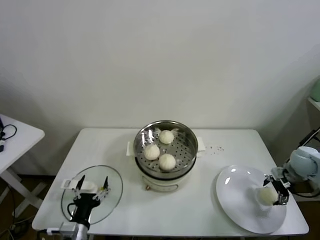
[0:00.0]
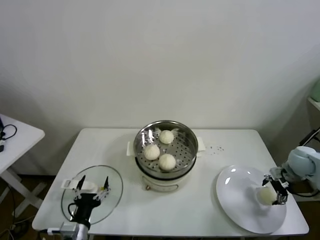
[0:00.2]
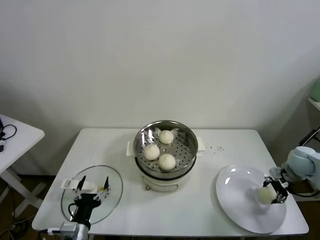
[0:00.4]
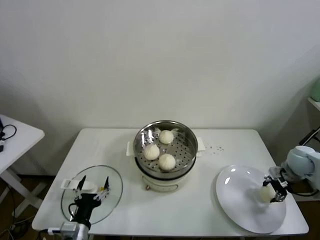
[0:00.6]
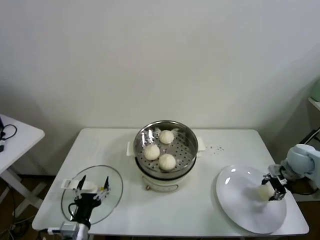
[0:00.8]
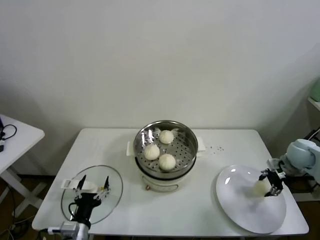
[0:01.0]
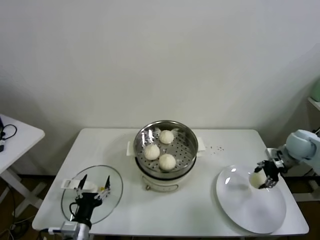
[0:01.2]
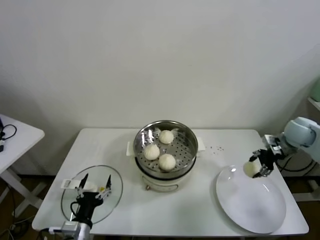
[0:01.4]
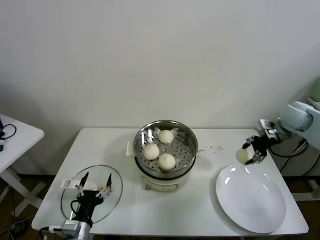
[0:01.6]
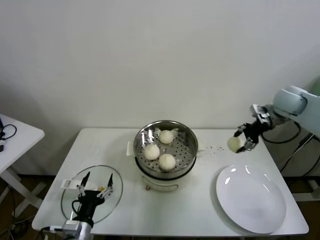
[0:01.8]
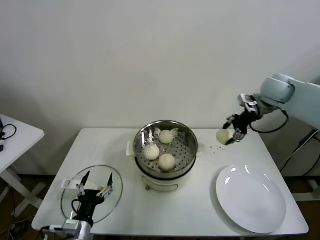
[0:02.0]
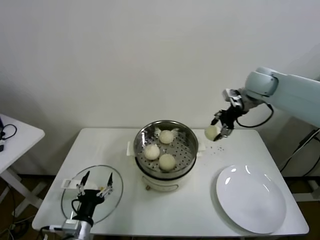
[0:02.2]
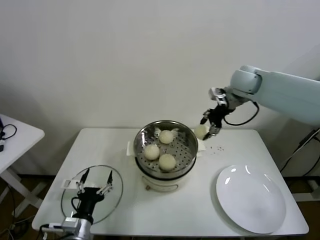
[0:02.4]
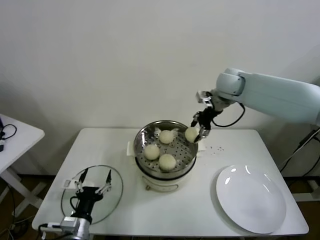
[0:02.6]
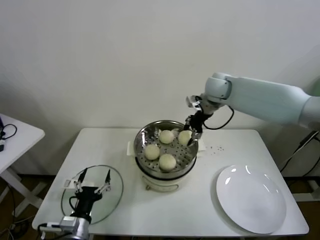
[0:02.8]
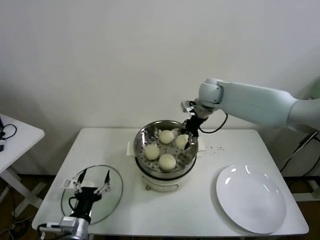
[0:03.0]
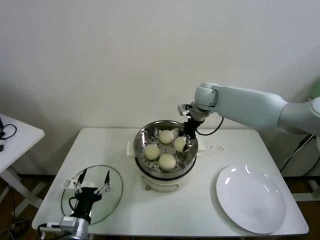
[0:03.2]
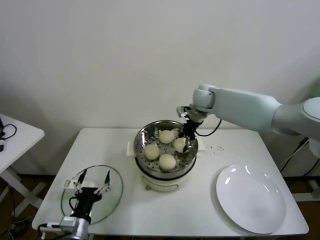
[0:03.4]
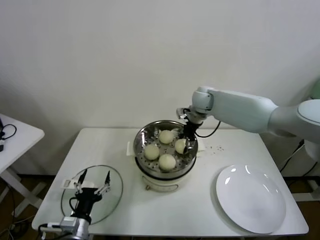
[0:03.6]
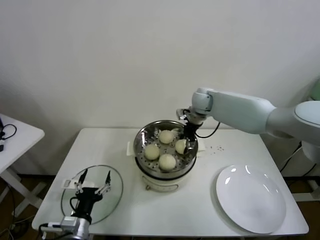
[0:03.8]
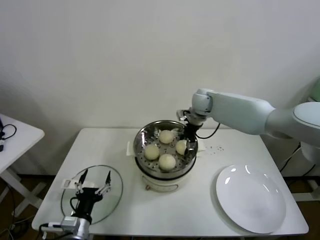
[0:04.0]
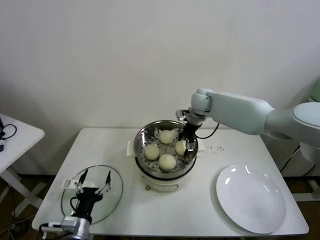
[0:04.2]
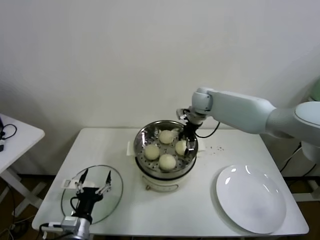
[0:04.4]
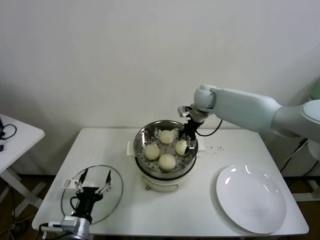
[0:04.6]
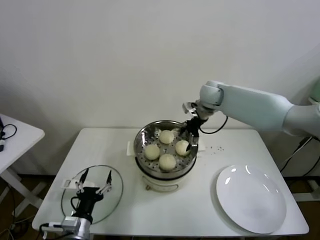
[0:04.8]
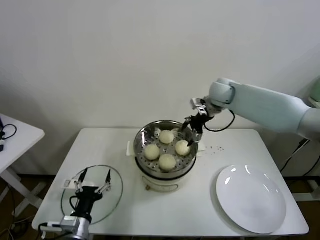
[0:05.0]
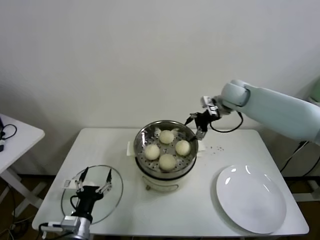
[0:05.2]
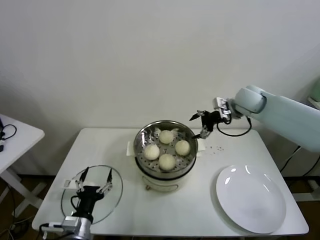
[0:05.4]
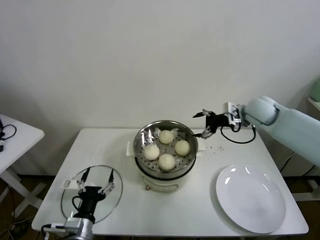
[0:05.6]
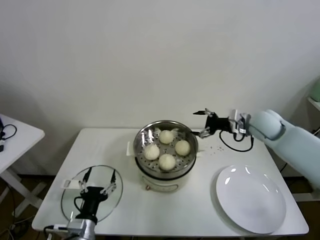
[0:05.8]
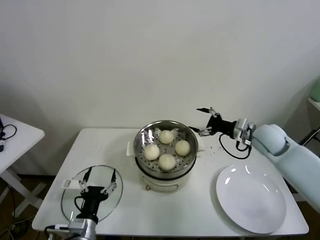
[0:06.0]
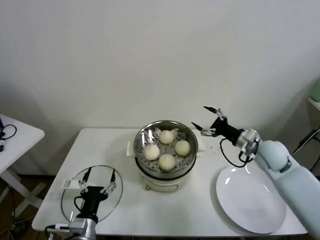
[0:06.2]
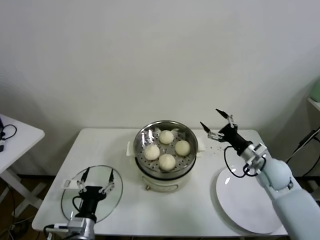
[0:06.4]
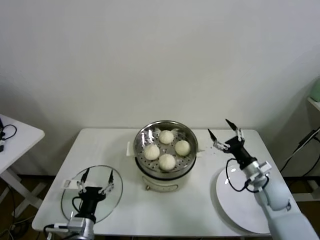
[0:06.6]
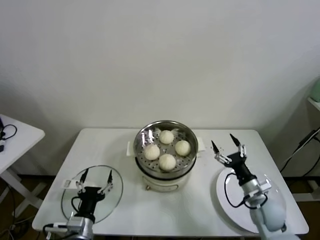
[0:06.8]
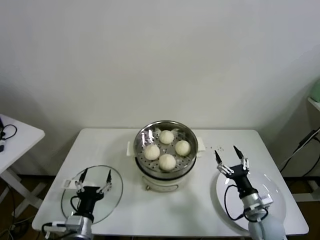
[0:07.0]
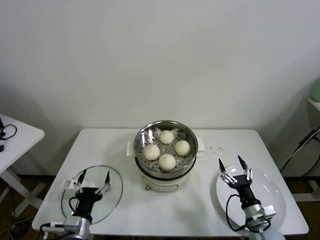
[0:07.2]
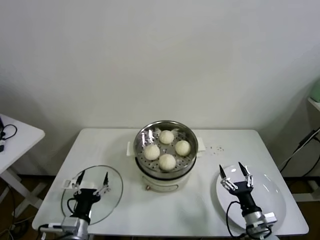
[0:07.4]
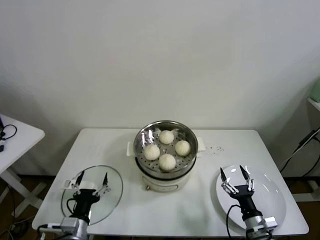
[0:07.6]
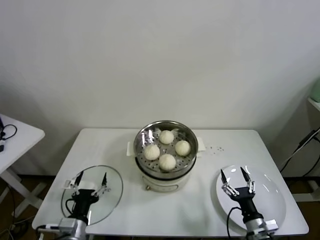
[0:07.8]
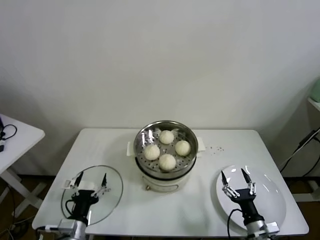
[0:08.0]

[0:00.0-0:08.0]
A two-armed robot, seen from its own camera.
Task of the whole recording: take steamed baozi put them in steamer.
Step, 0:00.4 to 0:04.2: Place the baozi on the steamer with right gripper.
0:00.0 to 0:01.6: The right gripper moves upward, forward and to the left, approximately 15 cm, and closes up.
0:01.6 to 0:03.2: The right gripper travels to the left by roughly 30 cm.
0:03.2 to 0:04.8: The right gripper opens up.
0:04.8 to 0:06.4: The right gripper heads backward, to the right and downward, covering about 30 cm.
0:06.4 to 0:08.0: The right gripper goes roughly 25 cm backward and downward.

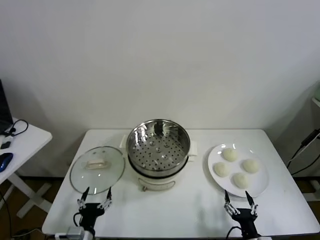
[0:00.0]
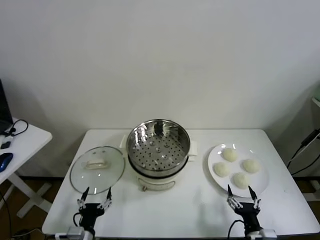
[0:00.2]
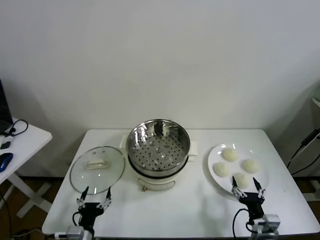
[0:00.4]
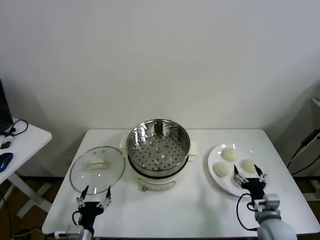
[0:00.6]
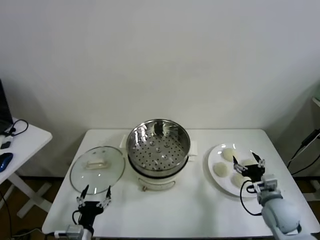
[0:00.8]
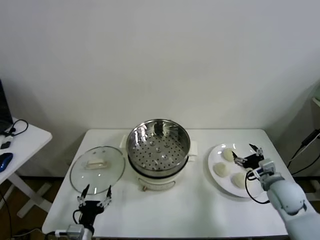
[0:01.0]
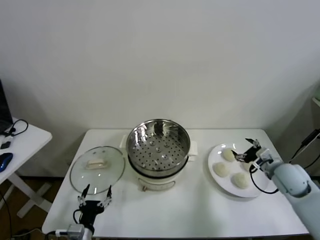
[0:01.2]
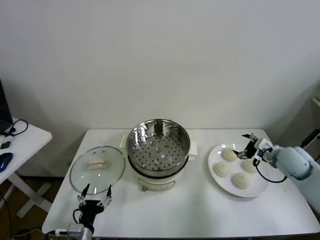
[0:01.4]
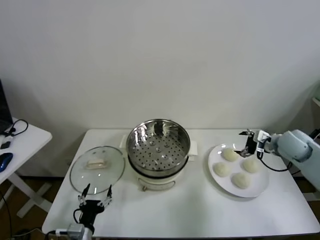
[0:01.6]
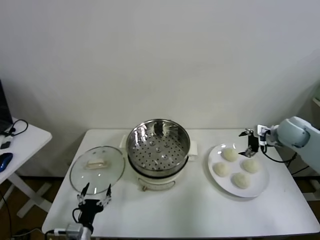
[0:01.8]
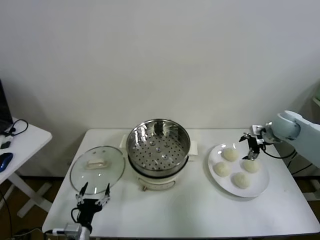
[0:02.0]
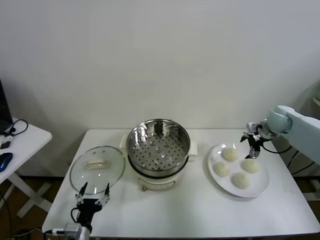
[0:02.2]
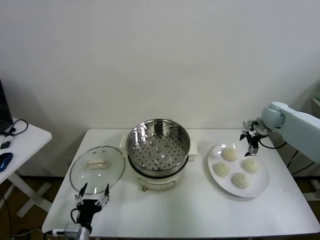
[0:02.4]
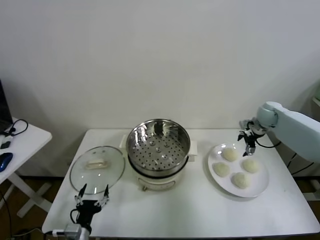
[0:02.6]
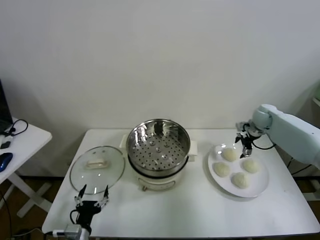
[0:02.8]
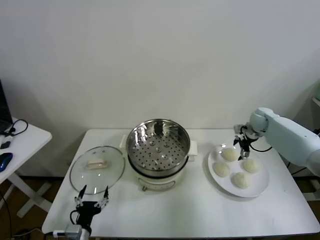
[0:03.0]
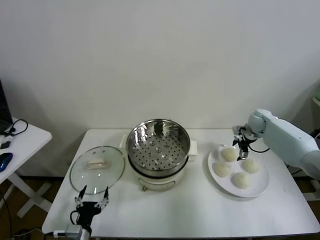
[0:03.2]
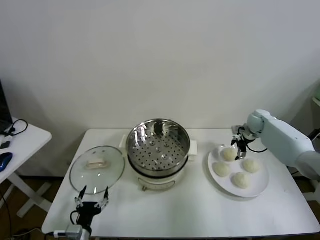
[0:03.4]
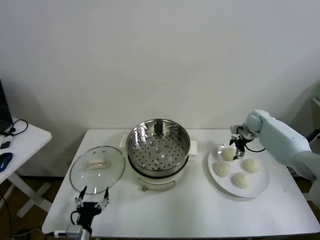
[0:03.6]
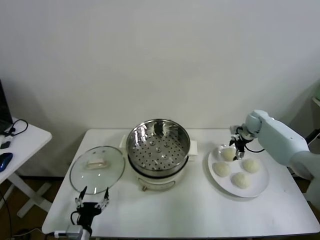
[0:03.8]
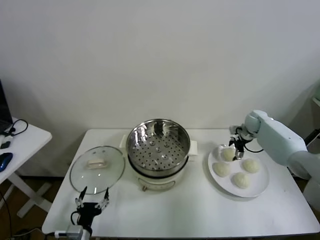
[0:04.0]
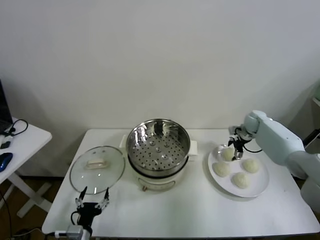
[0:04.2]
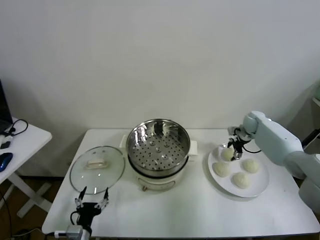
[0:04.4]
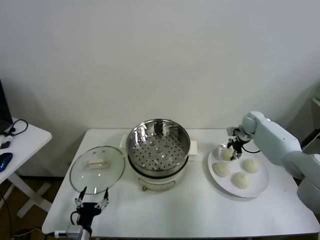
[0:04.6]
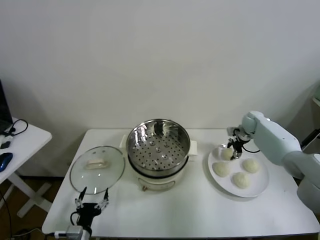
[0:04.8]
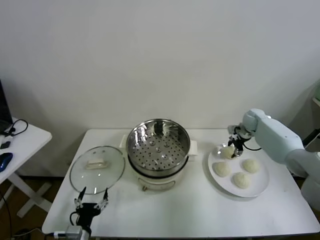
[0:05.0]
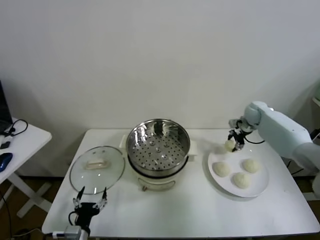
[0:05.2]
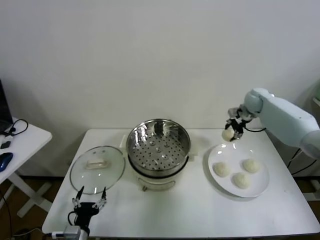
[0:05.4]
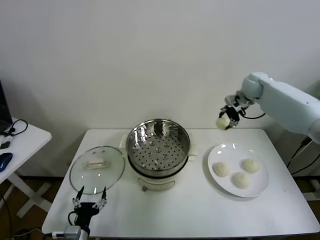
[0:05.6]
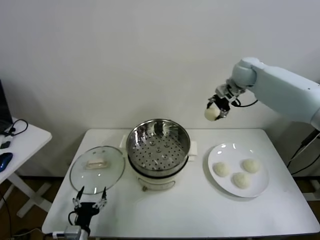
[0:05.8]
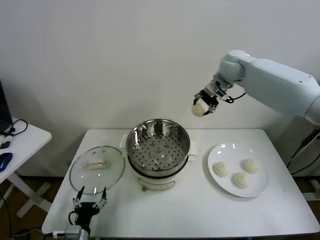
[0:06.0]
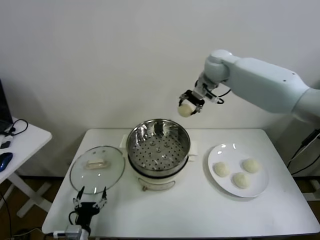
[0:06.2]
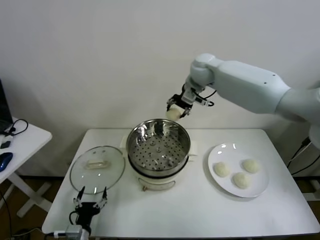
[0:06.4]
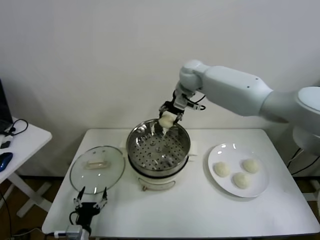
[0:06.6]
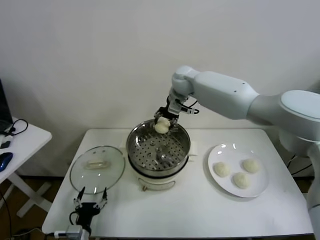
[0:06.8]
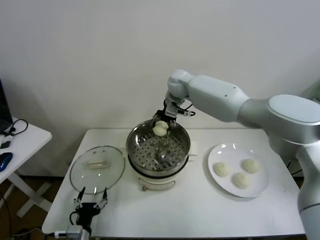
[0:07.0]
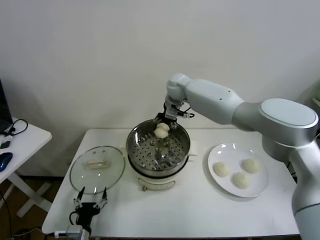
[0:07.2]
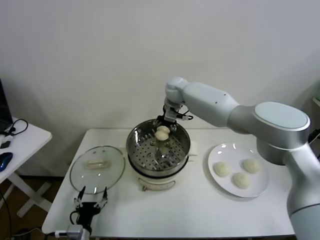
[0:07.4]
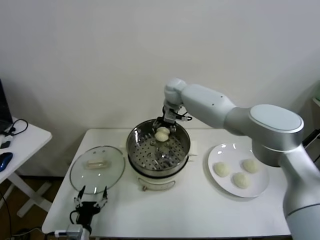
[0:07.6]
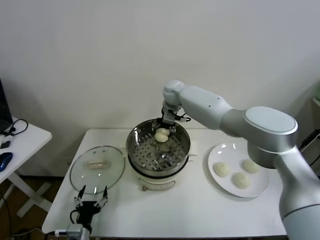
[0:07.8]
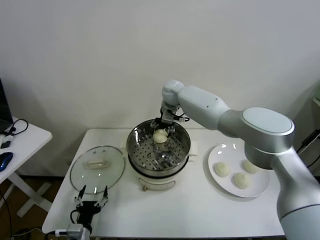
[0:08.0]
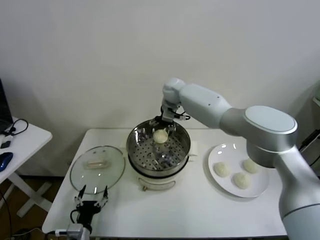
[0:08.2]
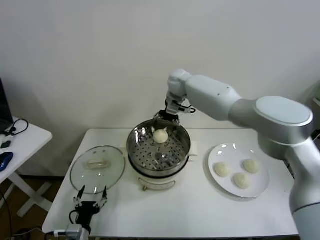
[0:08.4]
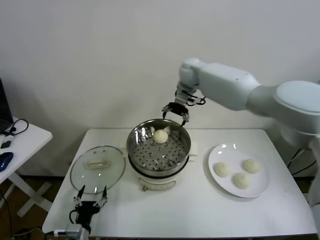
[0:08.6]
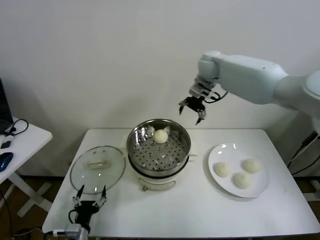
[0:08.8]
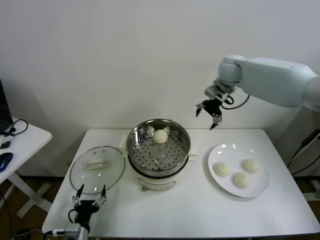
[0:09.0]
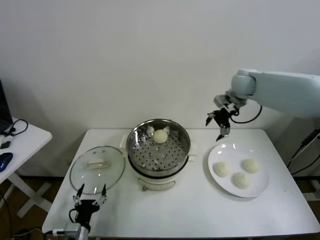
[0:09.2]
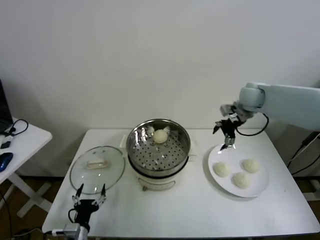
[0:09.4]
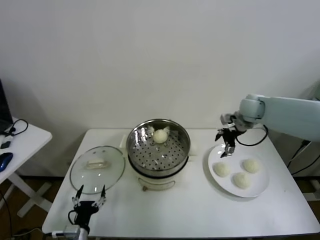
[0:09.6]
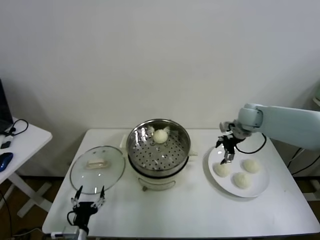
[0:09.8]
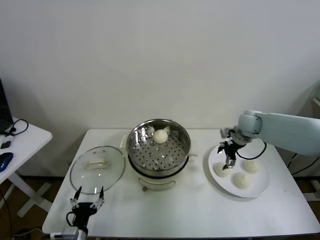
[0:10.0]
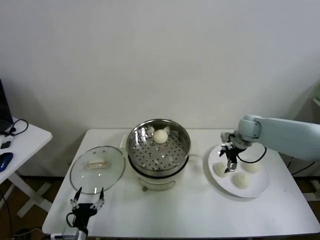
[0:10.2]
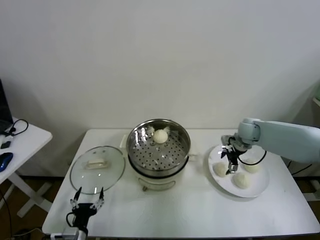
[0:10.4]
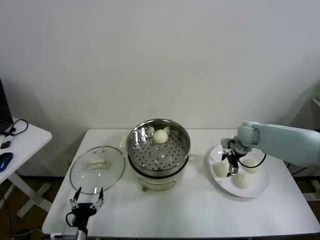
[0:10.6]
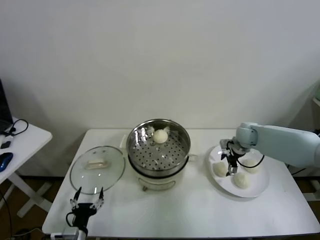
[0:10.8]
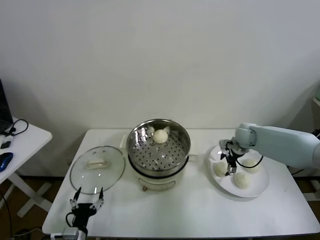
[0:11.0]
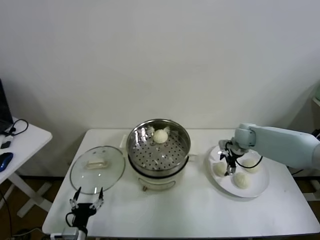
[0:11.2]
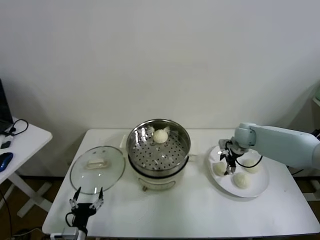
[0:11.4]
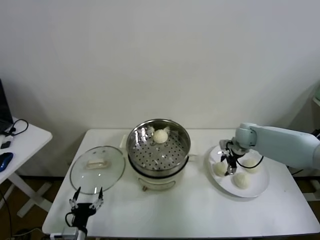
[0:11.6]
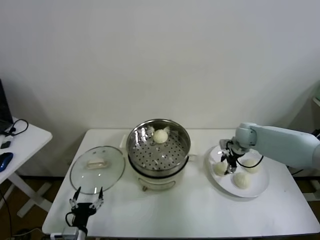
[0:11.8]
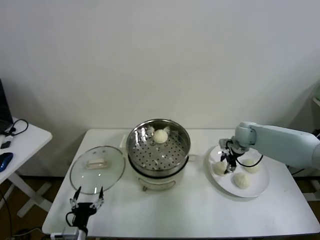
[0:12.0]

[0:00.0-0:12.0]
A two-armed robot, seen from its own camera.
Task of the whole recording: take steamed baozi put them in steamer.
Step, 0:00.0 to 0:04.4: Grasp the baozi in the plate with right gripper.
Step, 0:04.8 to 0:08.4: Place the baozi on the steamer with right gripper.
Step, 0:08.6 to 0:11.8: Grasp the baozi in the plate with right gripper.
0:01.6 to 0:03.0: The right gripper heads forward and downward, covering approximately 15 cm.
0:03.0 to 0:04.4: The right gripper closes up.
0:04.4 to 0:06.0: The right gripper heads upward and to the left, covering approximately 35 cm.
0:06.0 to 0:07.6: The right gripper moves to the left and downward, roughly 20 cm.
0:07.6 to 0:09.0: The right gripper travels to the right by some 20 cm, and opens.
0:09.0 to 0:10.4: The right gripper heads downward, covering some 20 cm.
0:10.4 to 0:12.0: The right gripper closes its fingers.

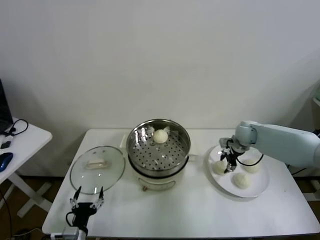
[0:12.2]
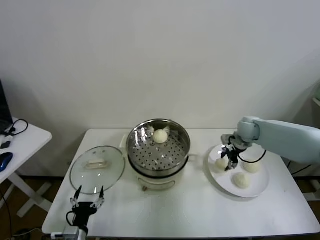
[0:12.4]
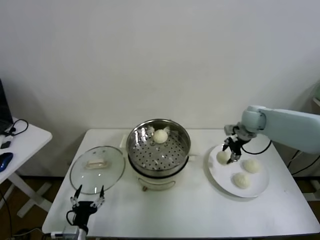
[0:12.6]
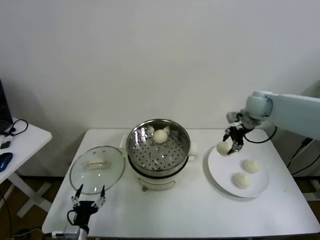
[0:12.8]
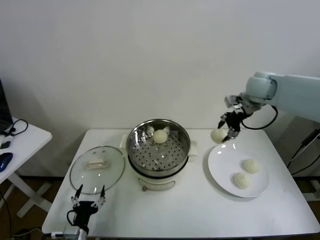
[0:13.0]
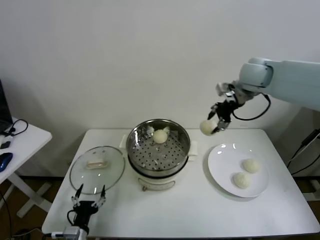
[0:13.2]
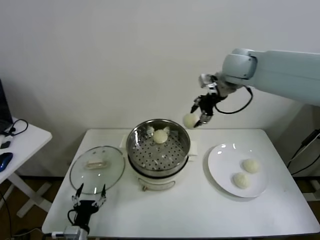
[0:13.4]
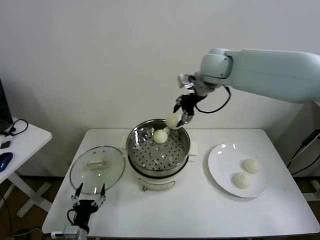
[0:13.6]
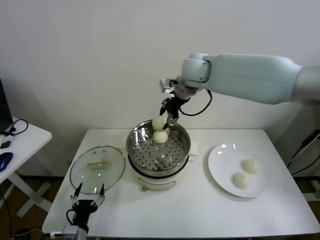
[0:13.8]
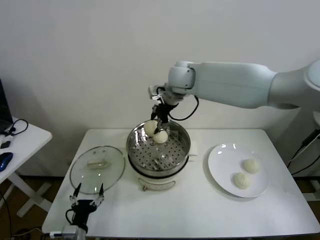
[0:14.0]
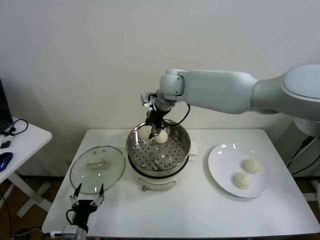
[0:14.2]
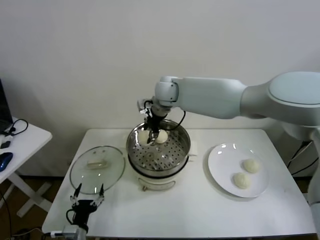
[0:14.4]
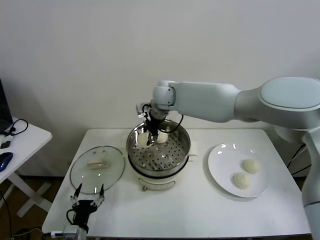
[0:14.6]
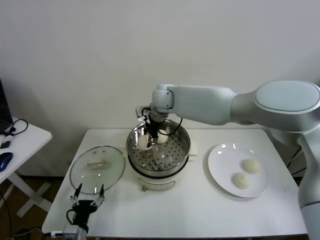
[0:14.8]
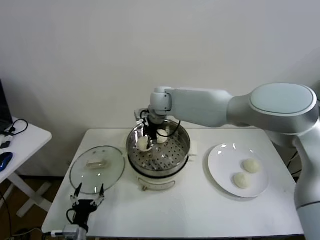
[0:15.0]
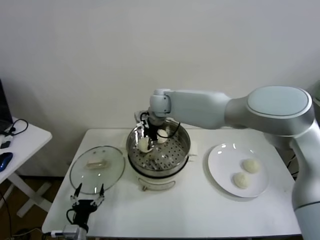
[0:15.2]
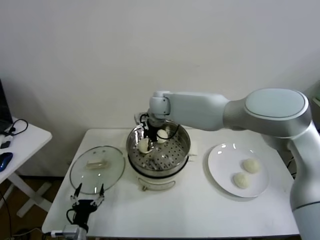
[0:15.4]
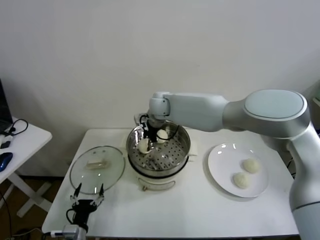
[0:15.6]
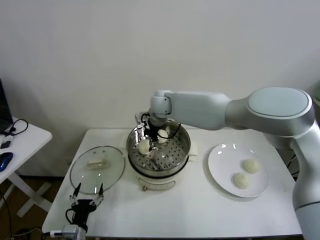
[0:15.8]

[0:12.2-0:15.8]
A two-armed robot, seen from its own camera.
Task of the whole recording: take steamed baozi put them in steamer.
0:12.2 to 0:14.0: The right gripper is displaced to the left and upward by about 35 cm.
0:14.0 to 0:15.8: The right gripper moves downward, some 10 cm, and opens up.
